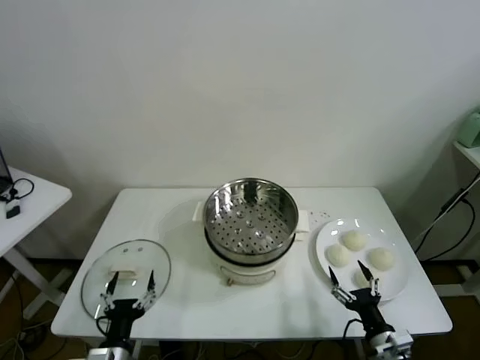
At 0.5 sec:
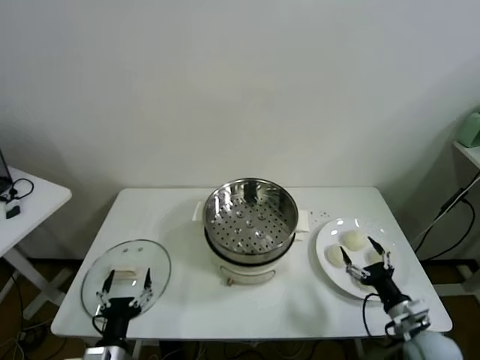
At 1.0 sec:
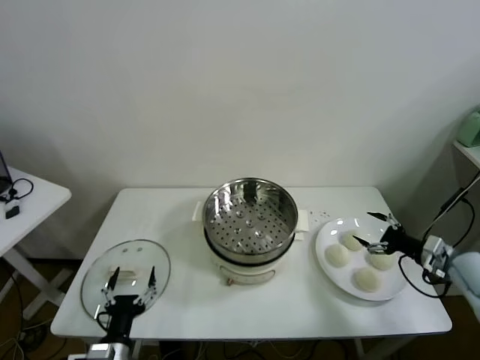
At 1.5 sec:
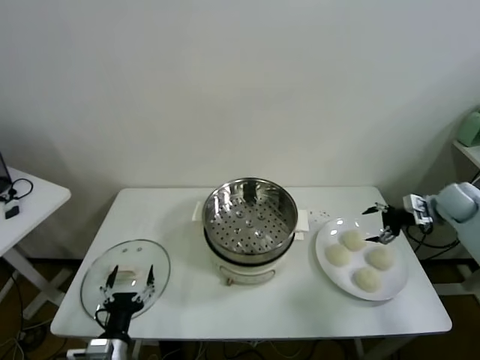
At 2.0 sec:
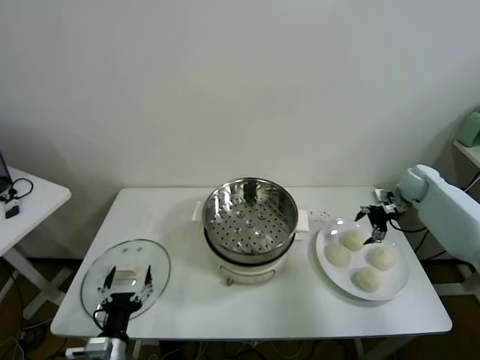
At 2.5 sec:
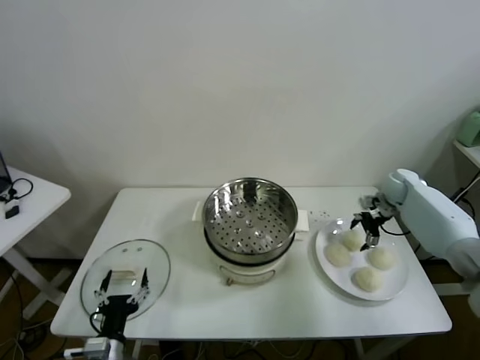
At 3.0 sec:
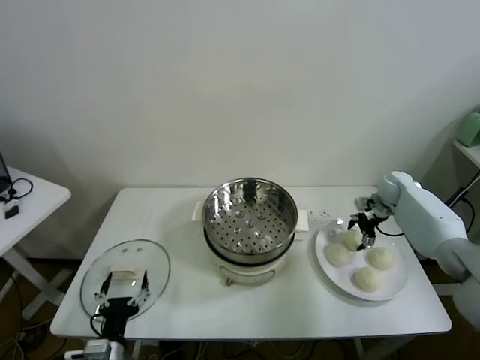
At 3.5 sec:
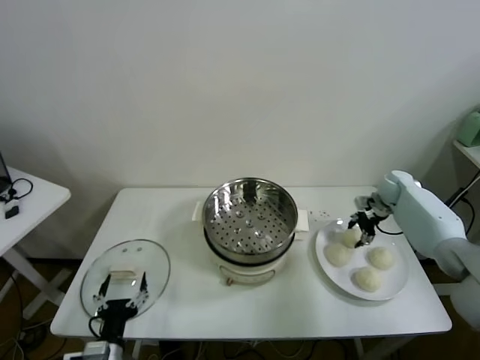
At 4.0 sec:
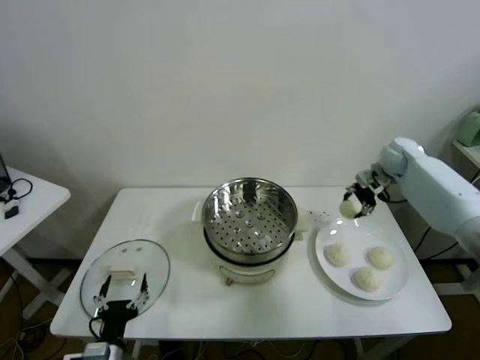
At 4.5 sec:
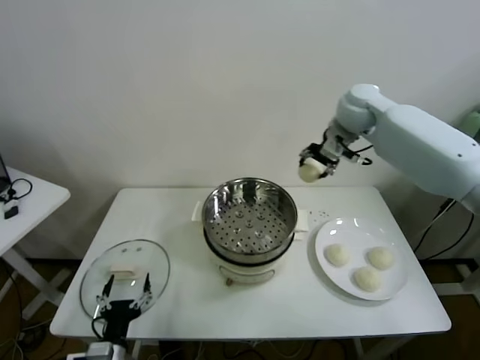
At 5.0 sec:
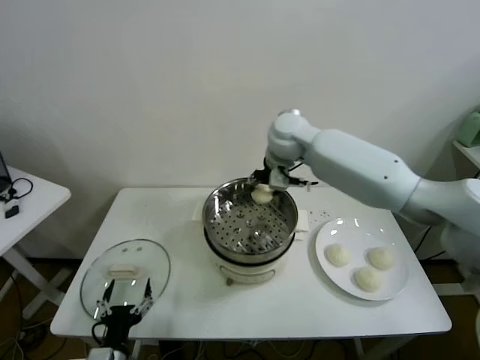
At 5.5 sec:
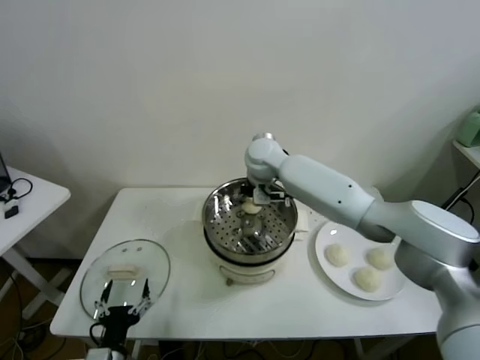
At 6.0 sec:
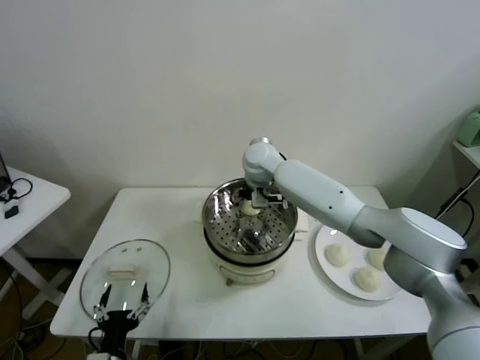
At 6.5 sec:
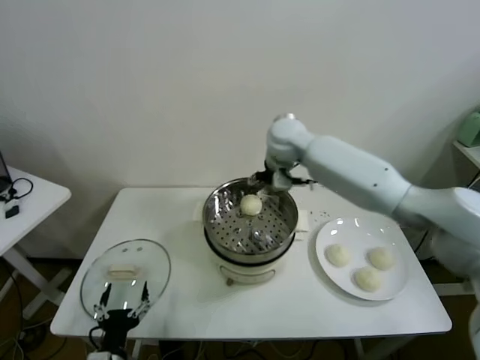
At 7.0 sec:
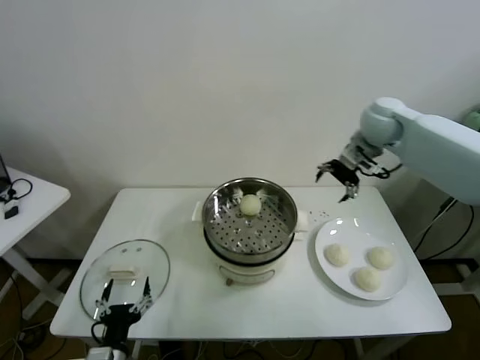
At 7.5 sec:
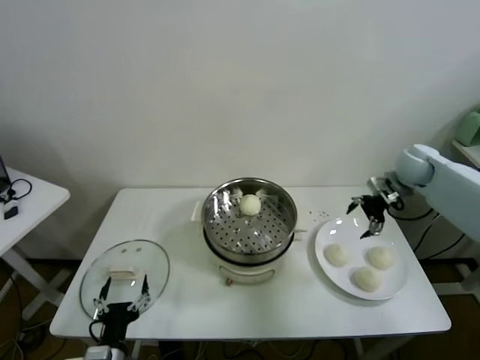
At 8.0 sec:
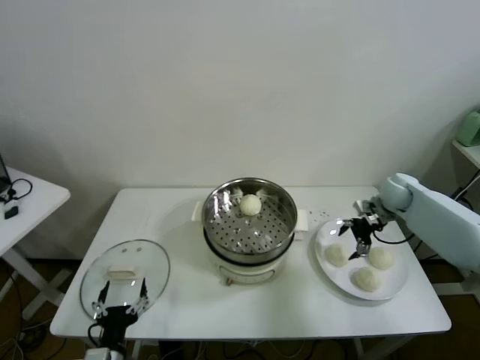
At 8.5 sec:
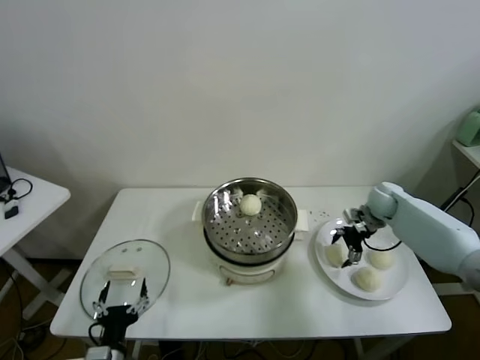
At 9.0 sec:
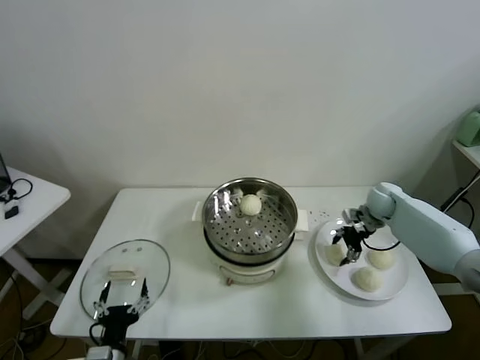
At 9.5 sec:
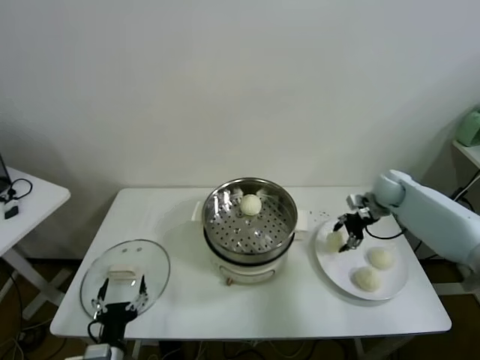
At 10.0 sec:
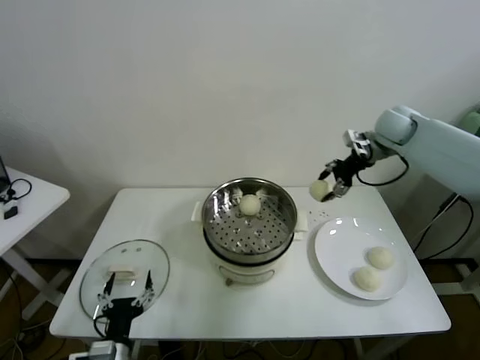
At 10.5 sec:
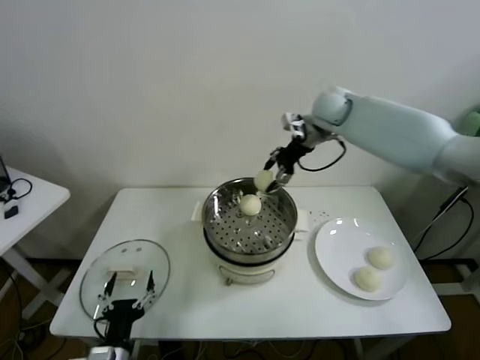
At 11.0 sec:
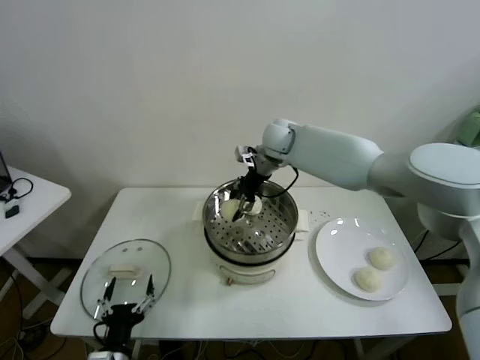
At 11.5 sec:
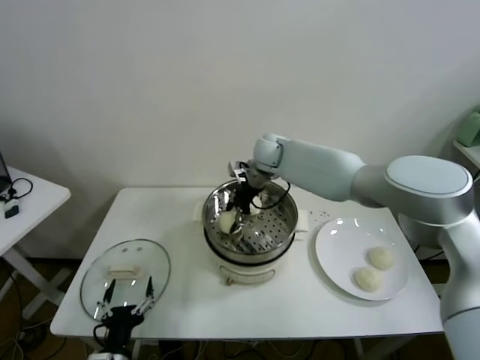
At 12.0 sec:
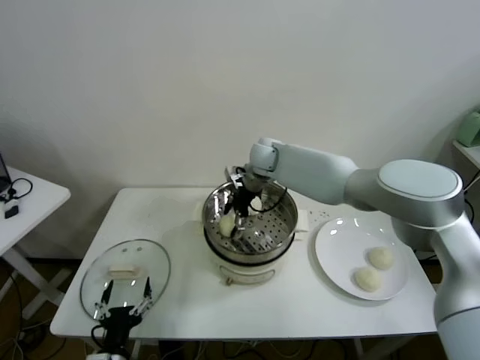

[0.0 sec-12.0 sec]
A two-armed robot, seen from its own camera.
Task of the whole recording: take steamed baozi put them in steamer.
Step, 0.0 sec to 3.0 sec: Grasp the baozi in the plate with right gripper.
Step, 3.5 sec to 6.0 sec: Place the baozi on the steamer with right gripper.
Step, 6.5 sec to 9.0 sec: Grasp the baozi in the plate with right gripper.
2.0 sec to 4.0 sec: The right gripper is displaced upward and to the left by about 15 cm, and closes up.
4.0 sec to 6.0 sec: The right gripper goes some 35 cm to the left, and opens its fingers.
6.0 sec to 8.0 sec: The right gripper moves to the right, approximately 35 cm.
8.0 sec to 10.0 sec: The right gripper travels upward by roughly 20 cm, and closes.
10.0 sec to 12.0 sec: The right gripper heads to the left, covering about 30 cm, and opens its fingers.

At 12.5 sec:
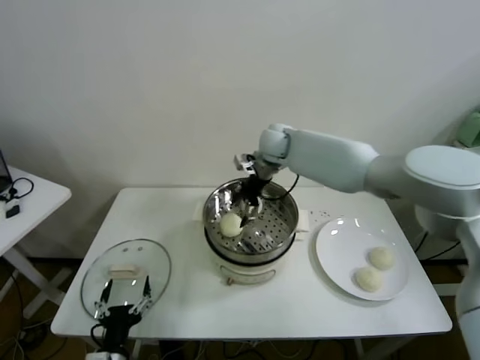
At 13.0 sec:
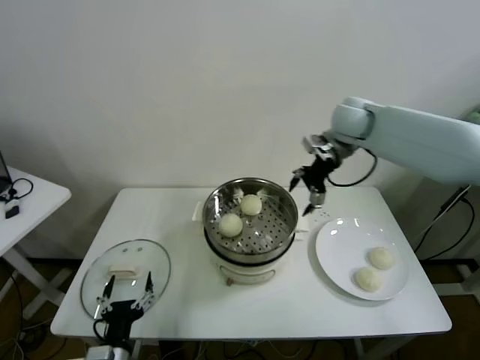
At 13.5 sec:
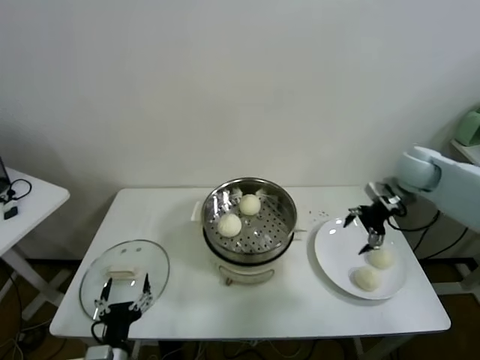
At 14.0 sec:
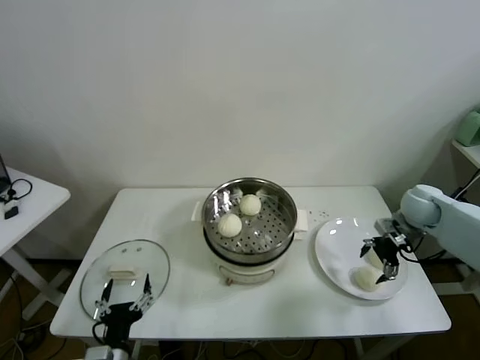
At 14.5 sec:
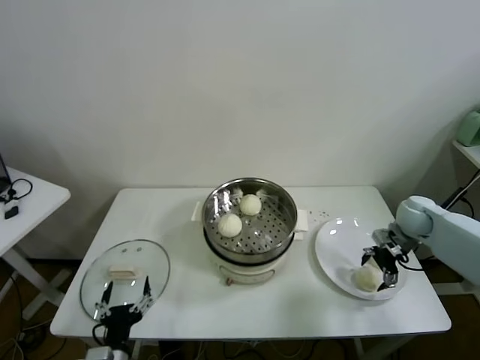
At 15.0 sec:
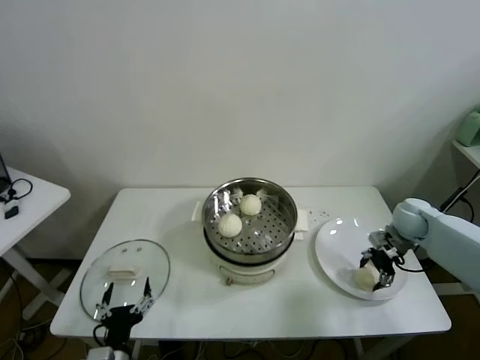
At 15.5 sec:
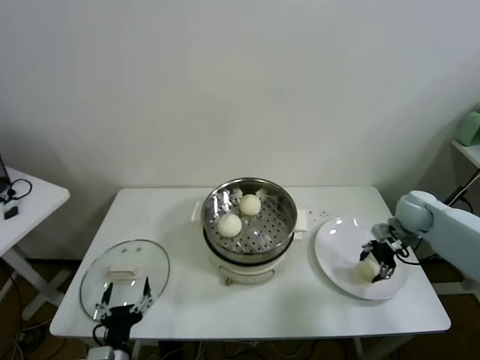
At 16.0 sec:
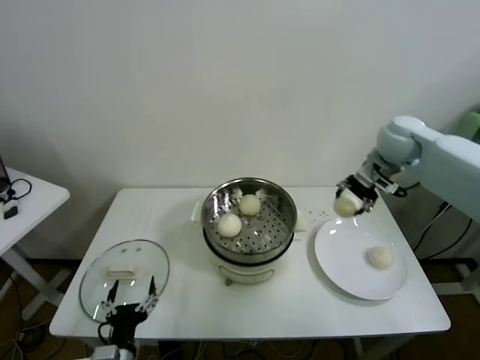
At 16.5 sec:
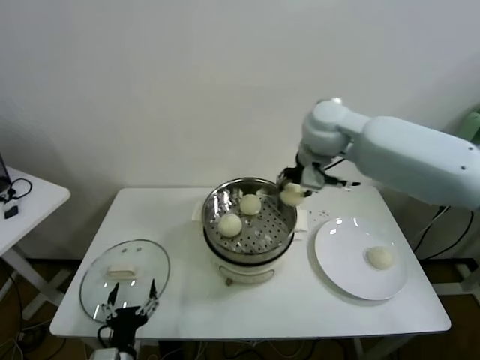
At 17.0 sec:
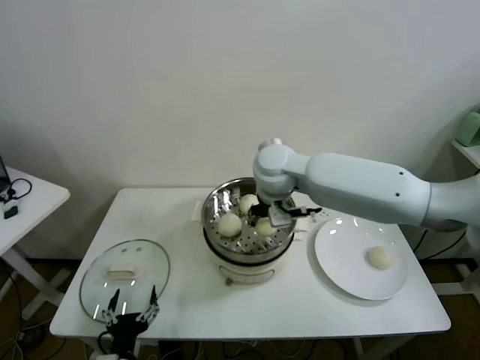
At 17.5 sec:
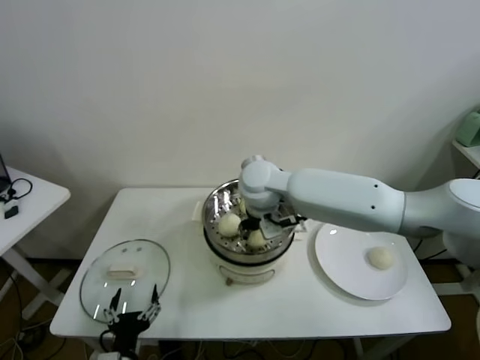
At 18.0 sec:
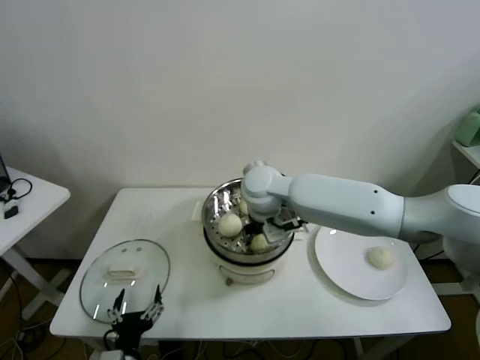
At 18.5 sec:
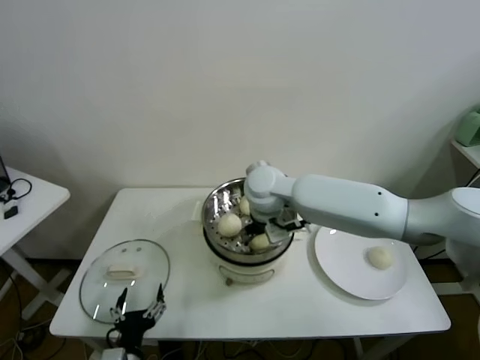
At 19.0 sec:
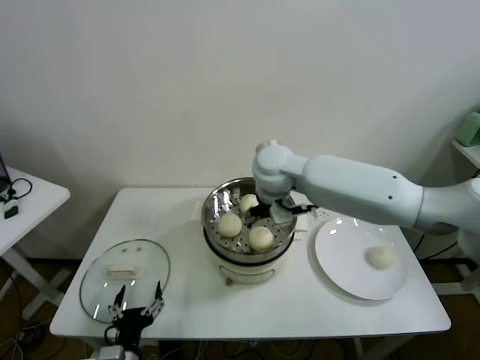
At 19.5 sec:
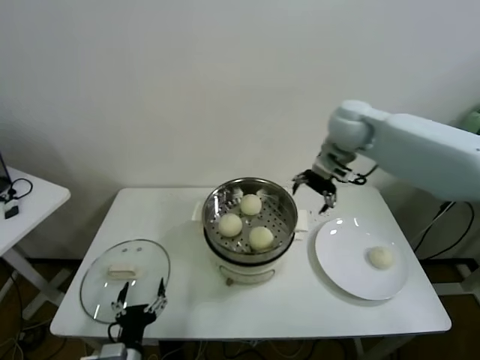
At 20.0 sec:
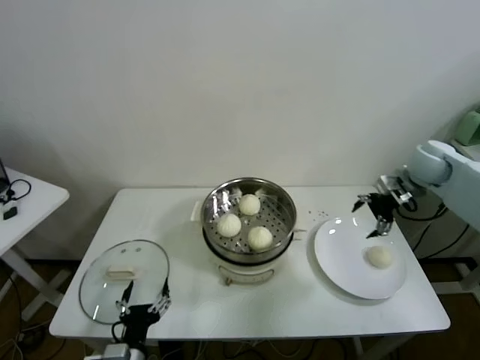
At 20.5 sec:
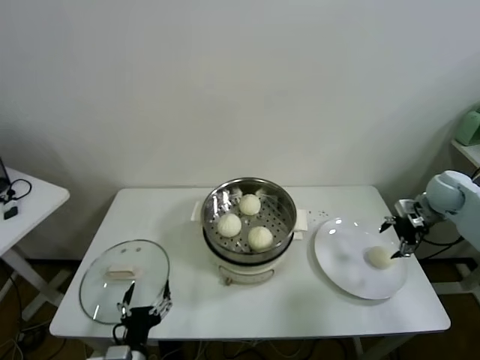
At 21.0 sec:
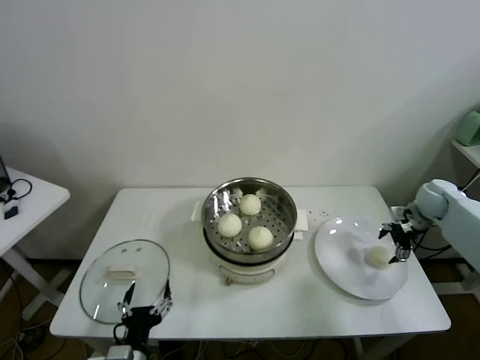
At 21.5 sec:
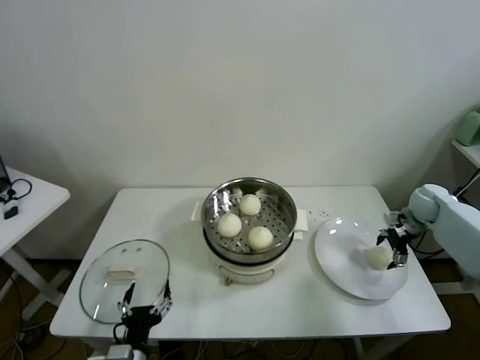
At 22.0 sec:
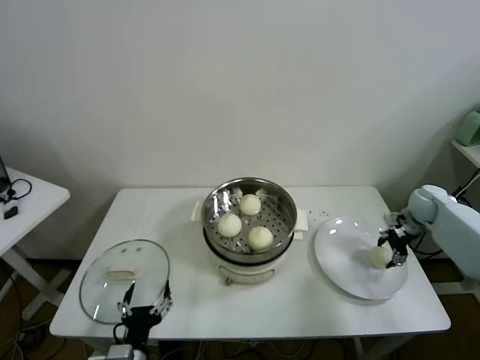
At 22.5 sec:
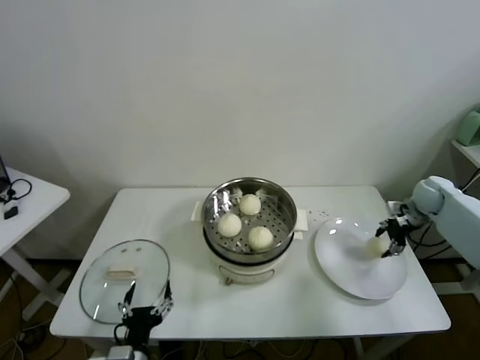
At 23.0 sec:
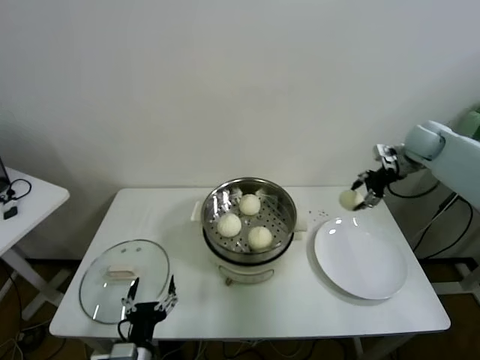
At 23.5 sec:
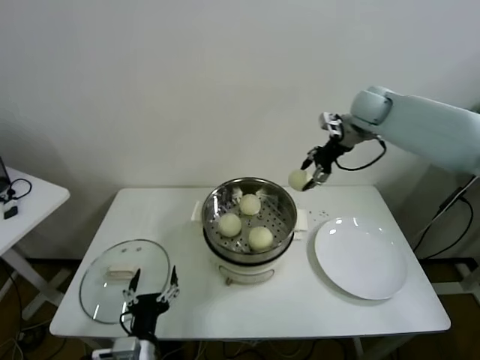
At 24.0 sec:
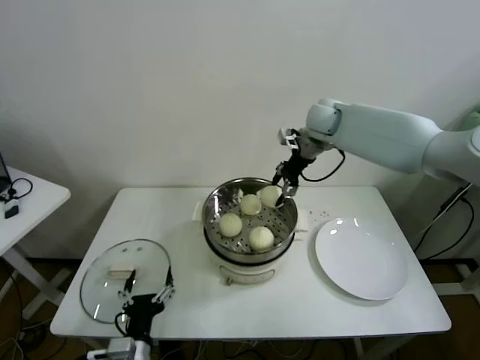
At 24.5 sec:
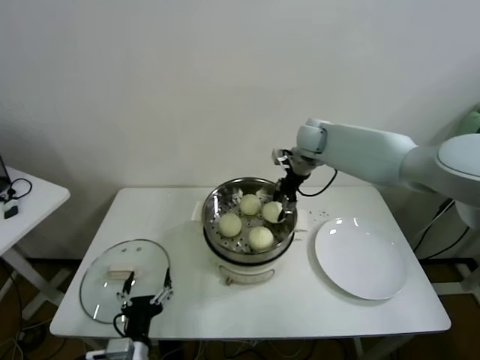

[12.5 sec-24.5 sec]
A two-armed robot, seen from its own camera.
Task of the whole recording: take steamed baozi put them in steamer.
Step, 12.5 sec to 15.0 sec: Grasp the baozi in the plate with right gripper.
Step, 15.5 sec to 18.5 sec: Place the baozi on the steamer with right gripper.
Step, 19.0 sec to 22.0 sec: Grasp the baozi in the plate with right gripper.
12.5 sec to 14.5 sec: The right gripper travels to the right and downward by roughly 35 cm.
14.5 sec to 16.5 sec: The right gripper goes some 40 cm to the left and upward, and closes its fingers.
16.5 sec to 18.5 sec: The right gripper goes about 15 cm downward and to the left, and opens.
18.5 sec to 20.5 sec: The right gripper heads to the right, covering approximately 40 cm.
20.5 sec to 22.5 sec: The right gripper ends up about 5 cm from where it was, and closes up.
22.5 sec to 24.5 sec: The right gripper is displaced to the left and upward by some 35 cm.

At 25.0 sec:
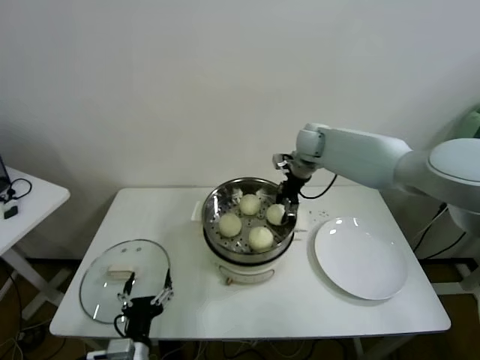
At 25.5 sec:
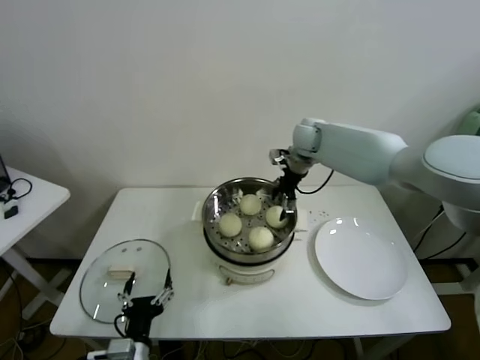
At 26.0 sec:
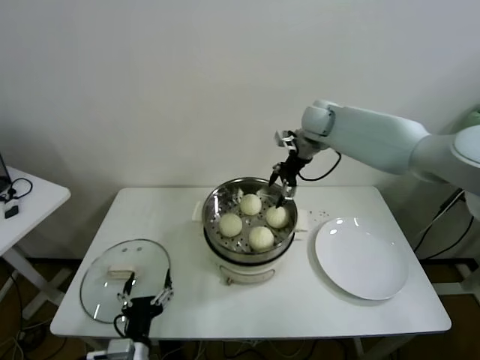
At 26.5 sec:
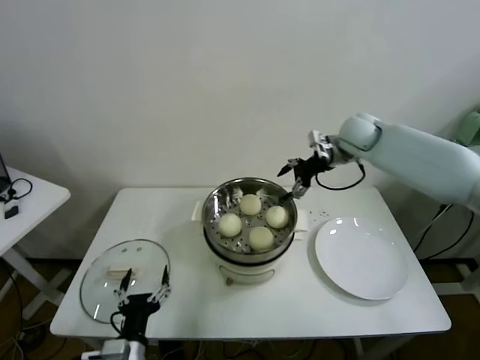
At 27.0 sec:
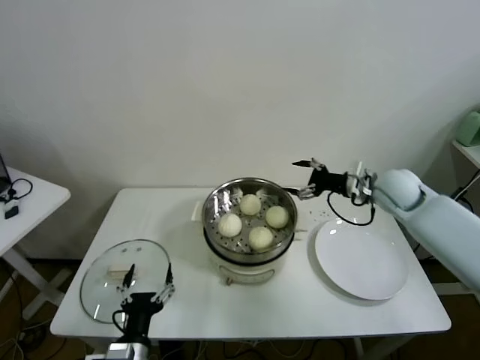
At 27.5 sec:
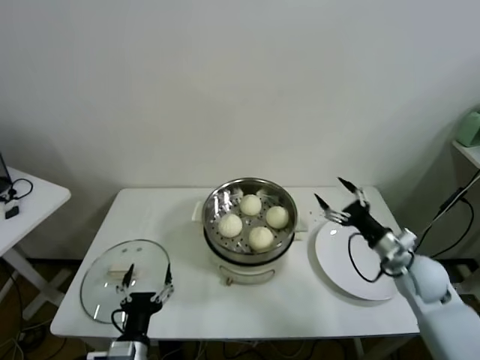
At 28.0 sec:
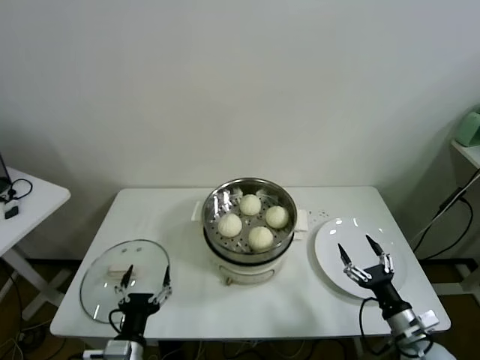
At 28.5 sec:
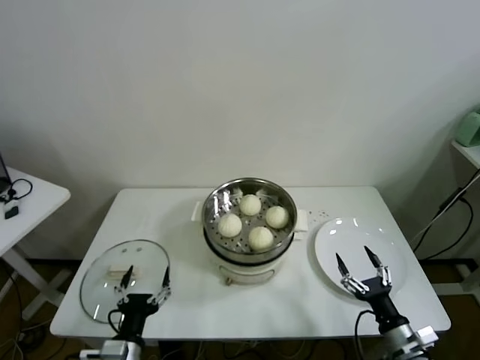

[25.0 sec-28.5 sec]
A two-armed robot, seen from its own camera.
Task of the whole recording: take steamed baozi put them in steamer.
25.0 sec to 27.0 sec: The right gripper is displaced to the right and backward by roughly 20 cm, and opens its fingers.
27.0 sec to 28.5 sec: The right gripper shifts approximately 40 cm backward and downward.
